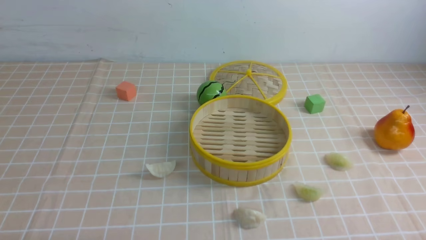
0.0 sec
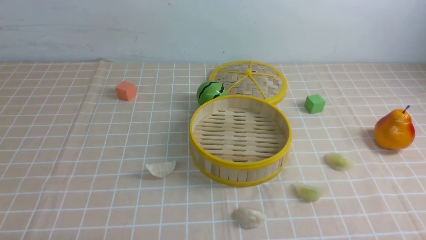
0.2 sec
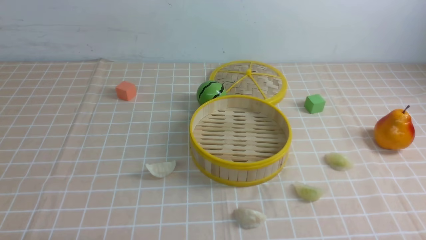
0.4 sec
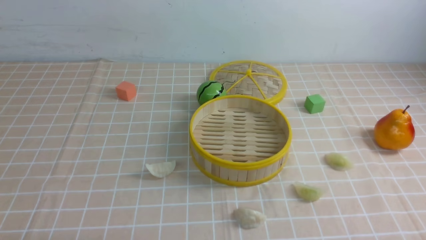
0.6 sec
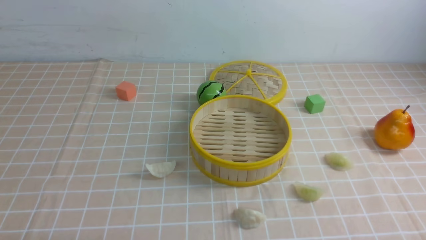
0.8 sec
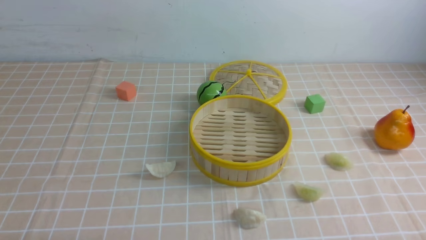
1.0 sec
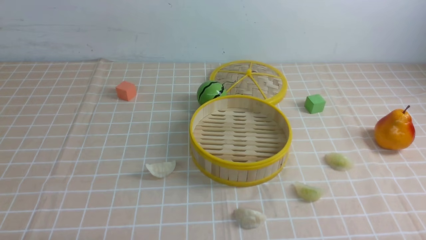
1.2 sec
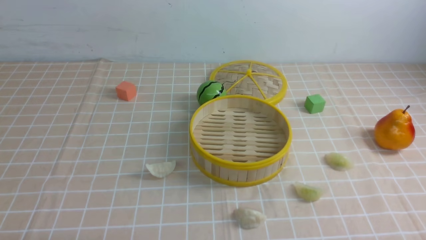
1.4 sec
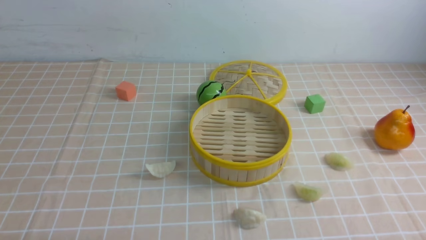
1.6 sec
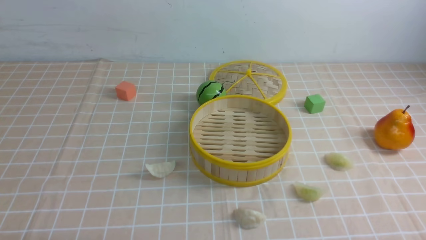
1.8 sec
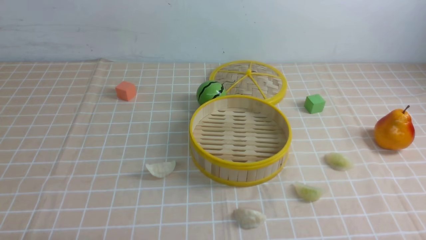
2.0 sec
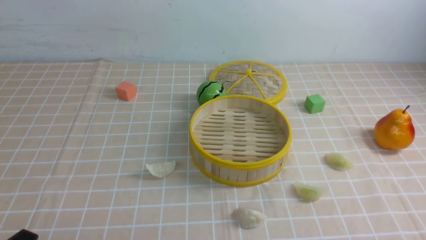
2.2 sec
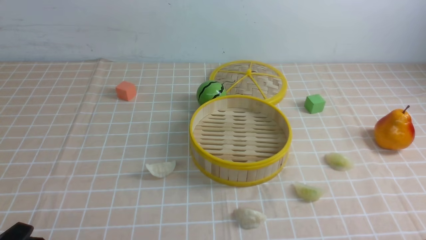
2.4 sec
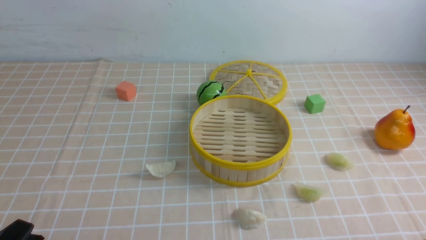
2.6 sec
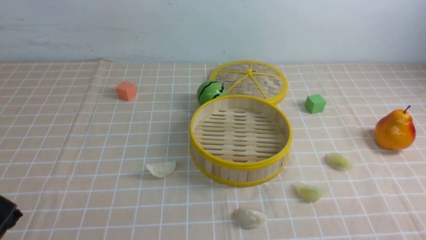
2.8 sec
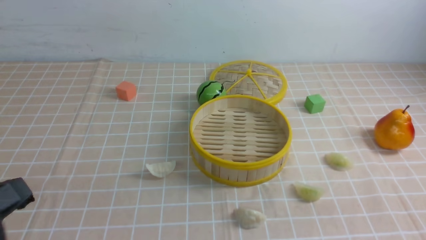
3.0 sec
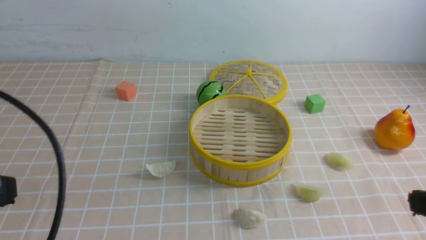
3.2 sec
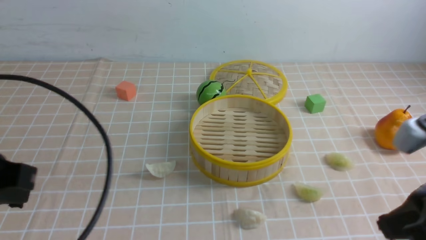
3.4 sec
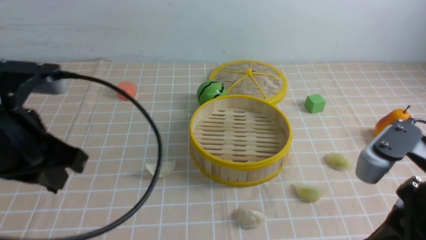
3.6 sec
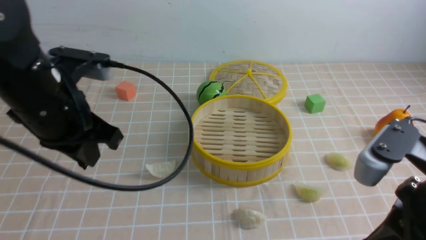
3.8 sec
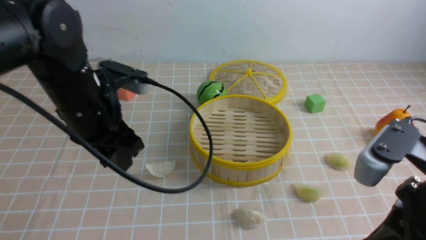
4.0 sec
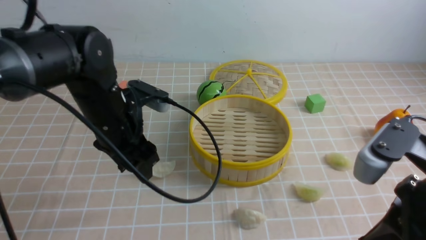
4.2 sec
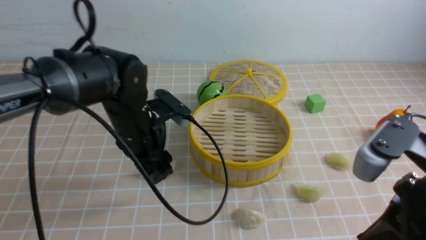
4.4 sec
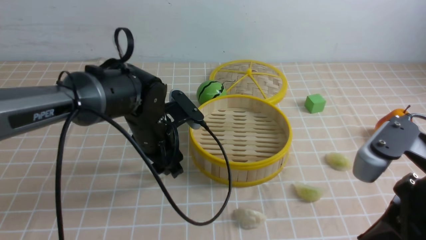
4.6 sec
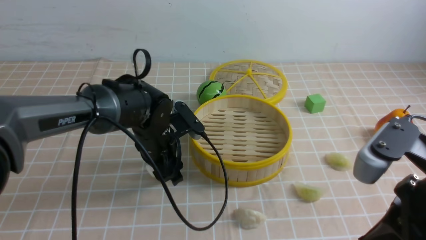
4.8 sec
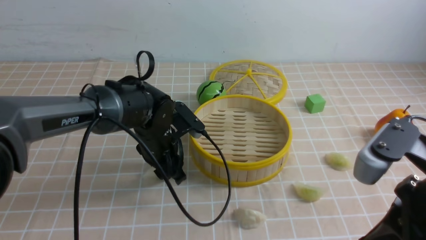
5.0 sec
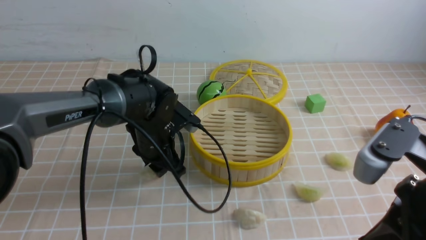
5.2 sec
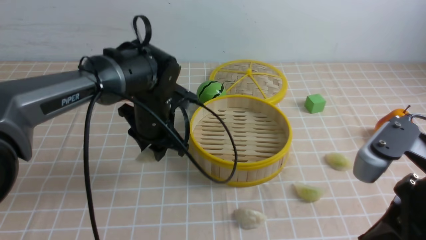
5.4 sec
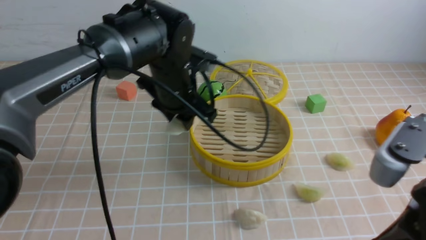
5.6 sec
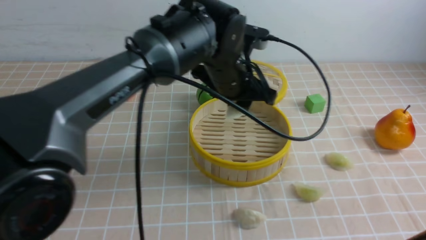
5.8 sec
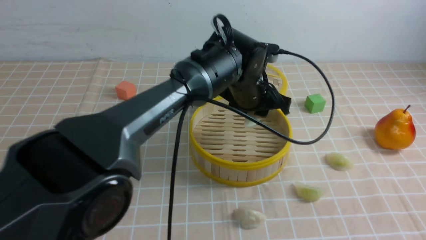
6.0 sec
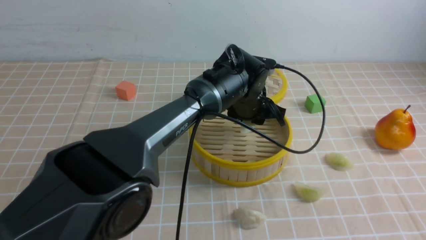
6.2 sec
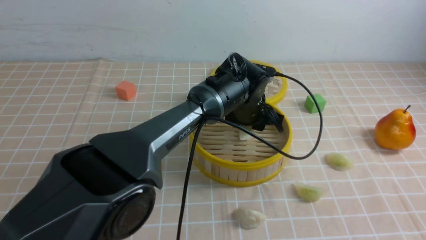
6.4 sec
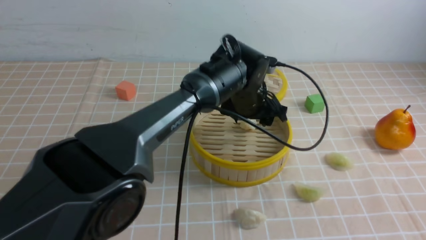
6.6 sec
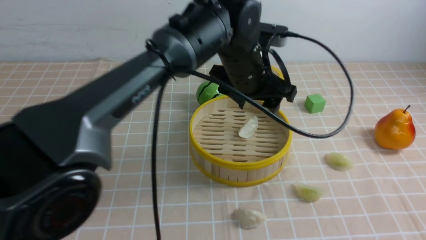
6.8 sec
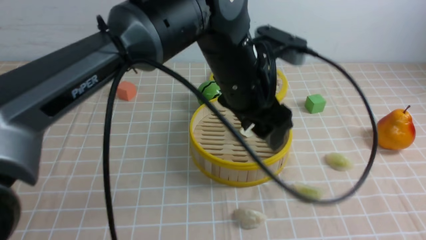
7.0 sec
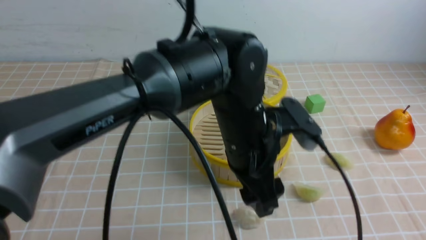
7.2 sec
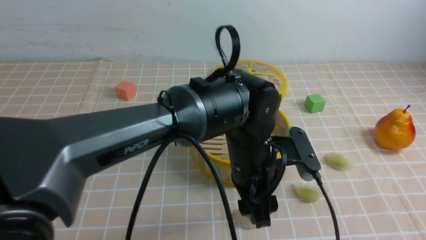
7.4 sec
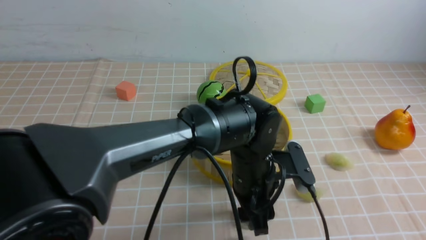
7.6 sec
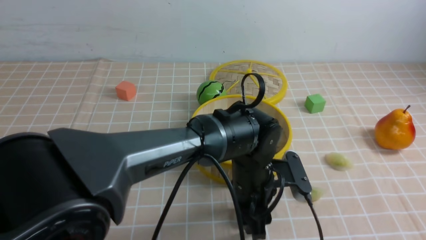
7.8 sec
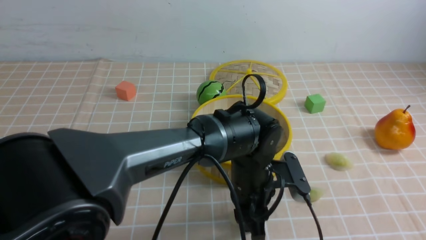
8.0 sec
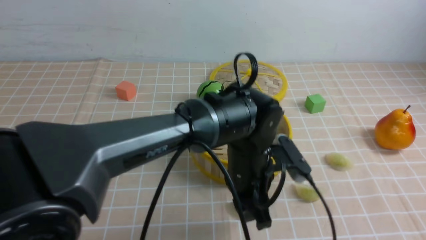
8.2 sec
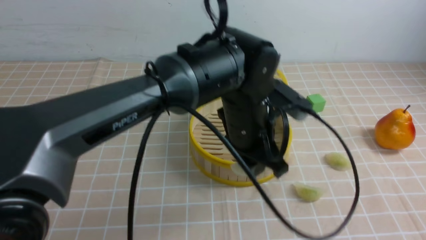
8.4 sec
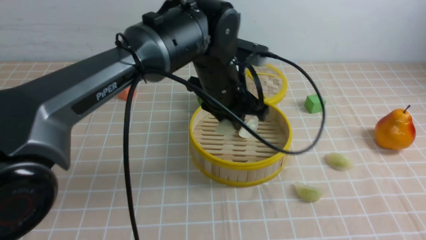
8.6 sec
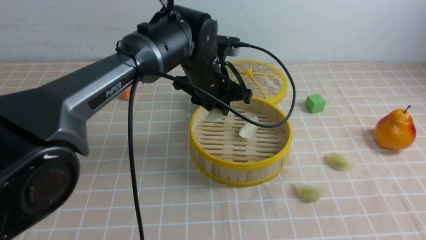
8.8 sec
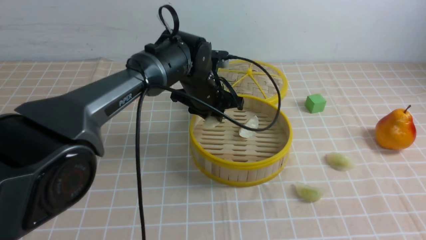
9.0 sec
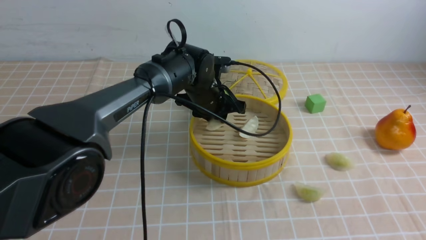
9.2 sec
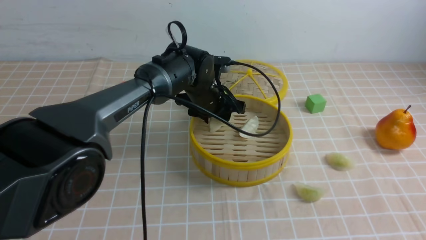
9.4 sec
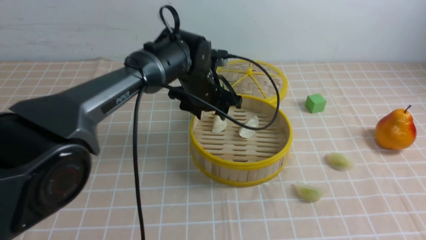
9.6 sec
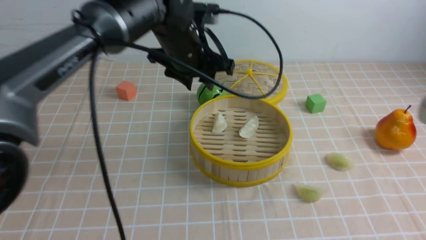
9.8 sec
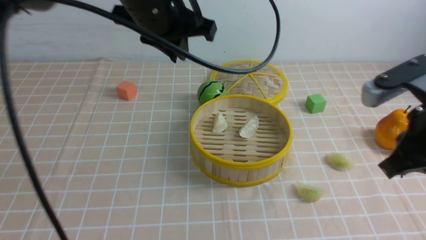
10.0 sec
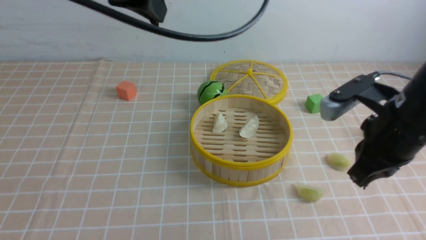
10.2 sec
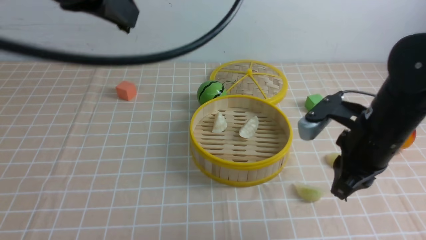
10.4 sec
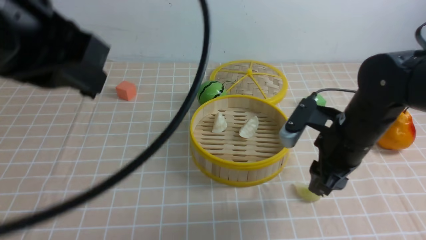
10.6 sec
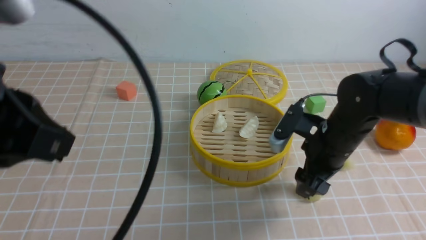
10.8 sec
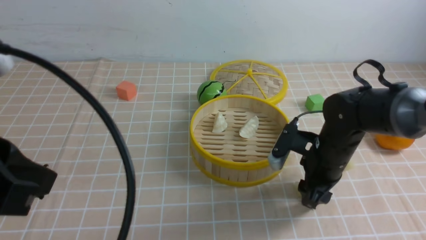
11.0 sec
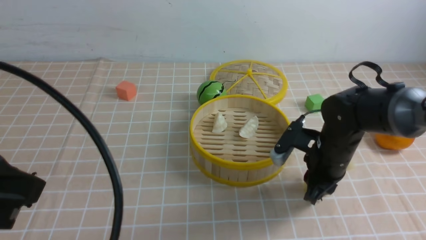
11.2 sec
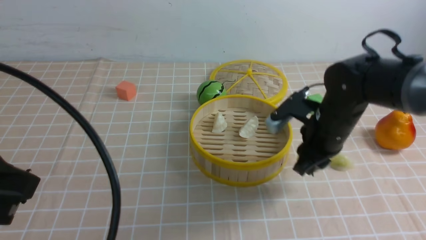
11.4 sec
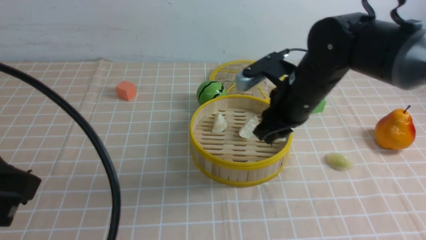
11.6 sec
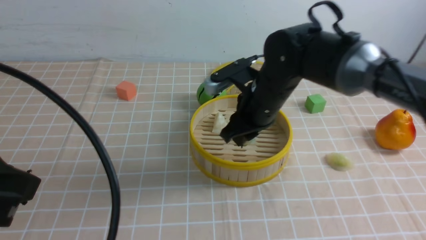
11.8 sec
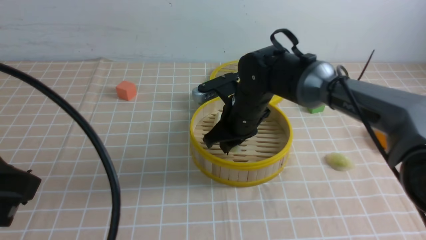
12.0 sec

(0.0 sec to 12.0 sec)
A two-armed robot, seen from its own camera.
Task of the whole recording: put the dumplings into the steamer on the table with the brown tablecloth.
Step, 0.0 sec - 5.0 sec: use the left arm to grab a dumpling.
Step, 5.2 sec - 6.6 sec: use the left arm to put the dumpling into the steamer.
Step, 6.8 sec - 7.8 sec: use the left arm to grab a dumpling.
Step, 8.2 sec - 9.6 sec: use the left arm to put the dumpling into the steamer.
Step, 9.8 sec - 11.0 sec: use the right arm to grab a dumpling.
1.6 sec - 3.0 sec: The left gripper moves upward, roughly 10 cm.
3.0 sec - 4.4 sec: The right gripper goes roughly 15 cm forward, to the left and upward. The left gripper is displaced forward by approximately 30 cm, and opens.
4.4 sec - 6.0 sec: The right gripper is displaced backward by some 5 cm, while the left gripper moves to the right and forward, about 20 cm.
6.0 sec - 7.6 sec: The left gripper shifts roughly 15 cm backward and downward; the right gripper shifts by approximately 5 cm.
7.6 sec - 9.0 sec: The left gripper travels forward and to the left by approximately 15 cm, and closes.
9.0 sec - 10.4 sec: The right gripper is displaced forward and downward by about 25 cm, while the left gripper heads upward, backward and to the left, covering roughly 30 cm, and closes.
10.4 sec - 12.0 sec: The right gripper is displaced to the left and forward by roughly 20 cm, and opens and closes again; the left gripper shifts approximately 20 cm backward, downward and to the left.

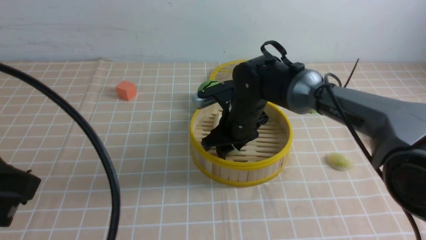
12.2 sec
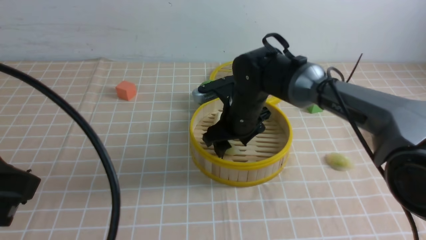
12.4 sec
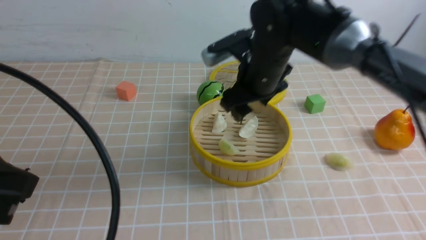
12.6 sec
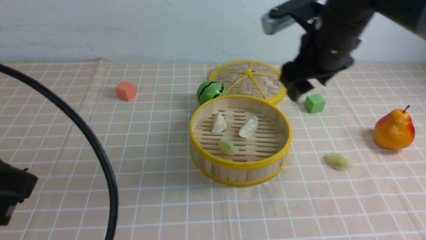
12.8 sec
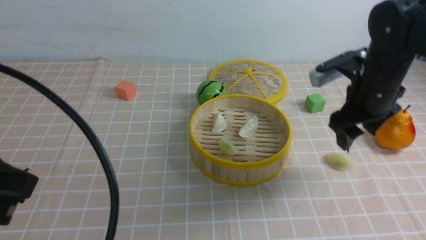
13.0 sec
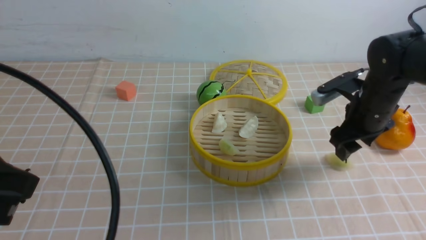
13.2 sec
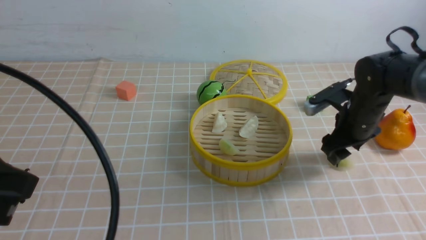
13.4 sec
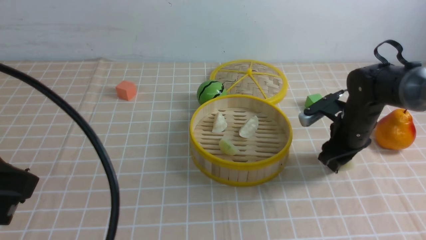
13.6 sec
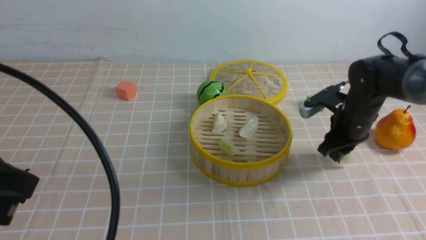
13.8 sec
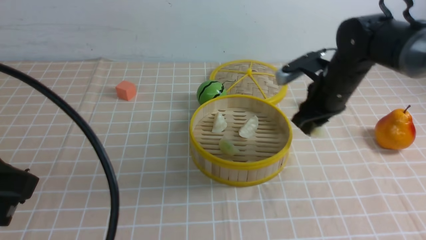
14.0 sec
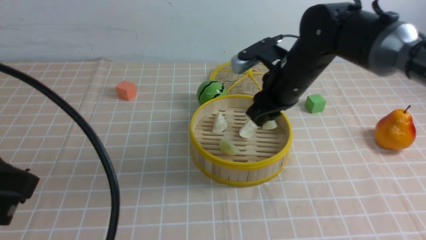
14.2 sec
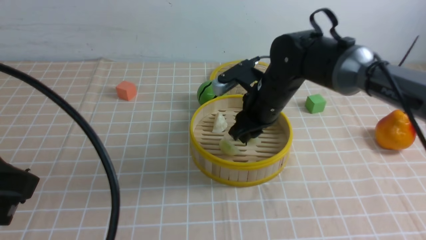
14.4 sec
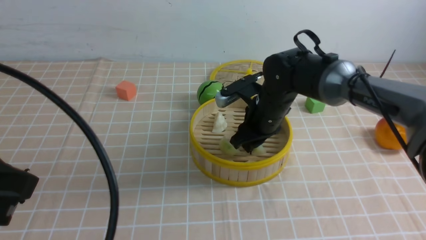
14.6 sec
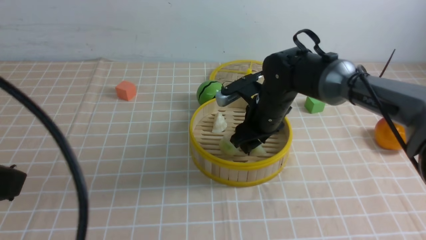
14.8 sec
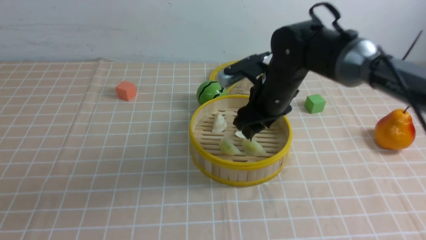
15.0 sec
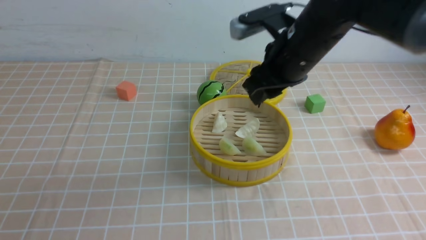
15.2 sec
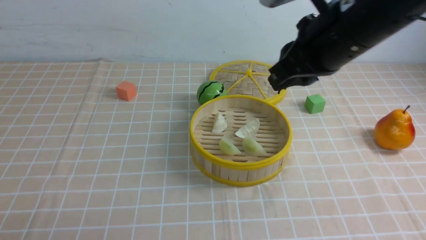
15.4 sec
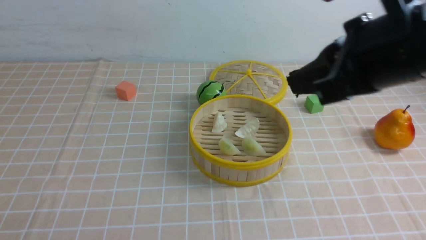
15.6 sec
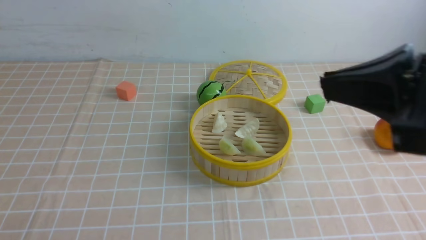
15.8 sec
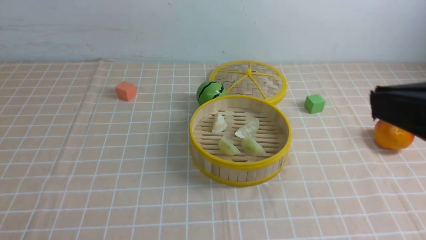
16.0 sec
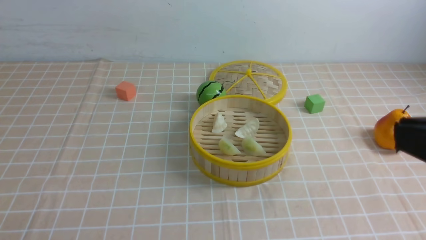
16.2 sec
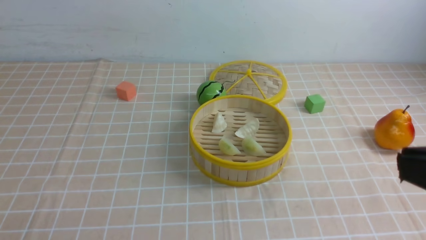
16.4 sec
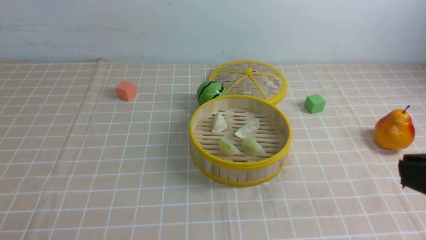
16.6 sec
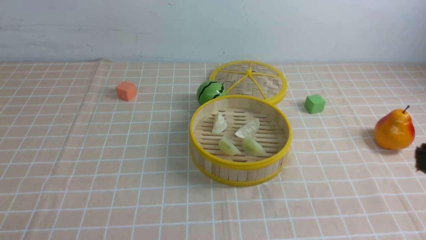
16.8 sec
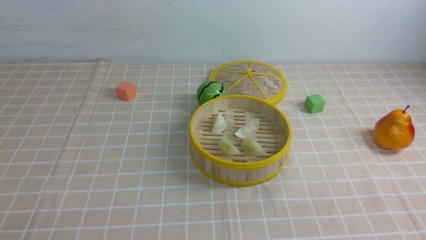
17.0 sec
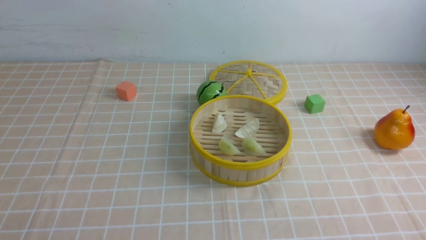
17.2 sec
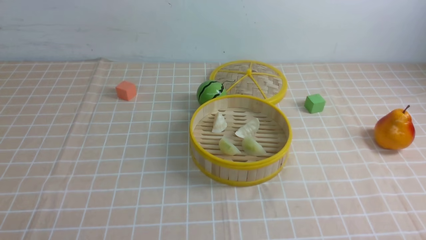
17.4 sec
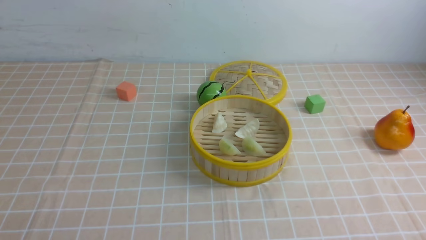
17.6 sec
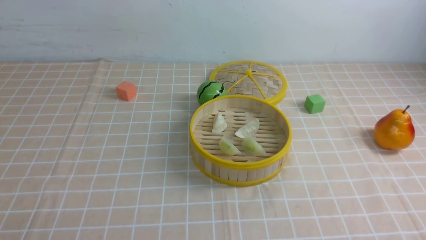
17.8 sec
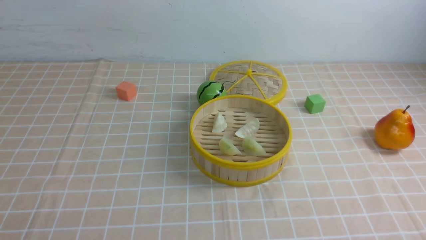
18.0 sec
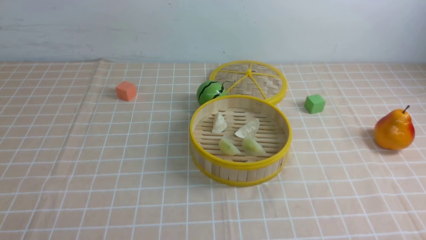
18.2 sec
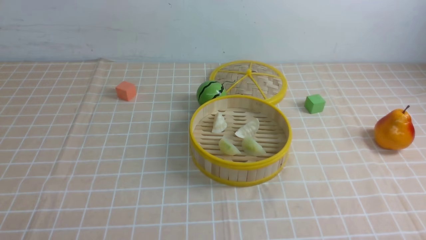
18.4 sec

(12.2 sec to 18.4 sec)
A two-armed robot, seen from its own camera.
Task of the whole recording: put the dumplings into the steamer on the table with the brown tablecloth.
Step, 12.6 sec - 13.6 sec: use the right arm to grab a dumpling.
Step, 13.8 sec - 15.0 sec: use the right arm to put the dumpling into the steamer.
12.2 sec - 13.8 sec: The right gripper goes approximately 20 cm to the right, and opens, then closes again.
13.8 sec - 15.4 sec: The left gripper goes approximately 15 cm backward, to the left and downward, while the right gripper moves up and down over about 20 cm, changing direction 2 times.
15.4 sec - 16.8 sec: The right gripper heads backward and to the right, covering approximately 30 cm. Meanwhile the left gripper is displaced downward by about 5 cm.
